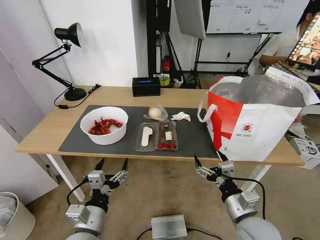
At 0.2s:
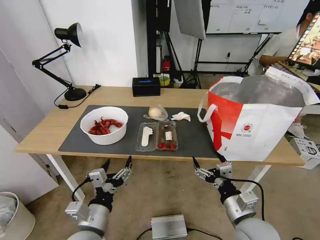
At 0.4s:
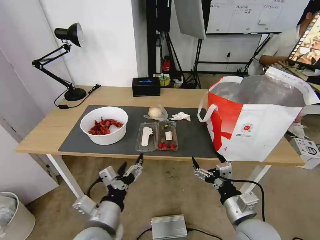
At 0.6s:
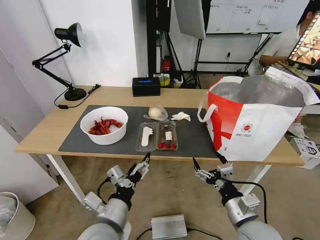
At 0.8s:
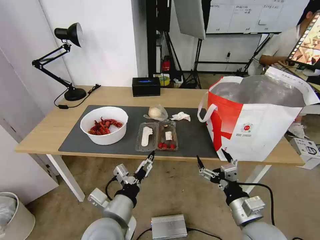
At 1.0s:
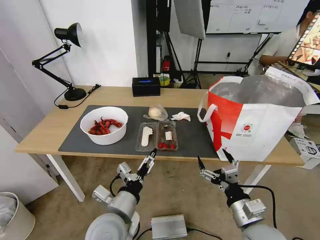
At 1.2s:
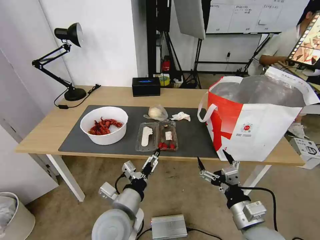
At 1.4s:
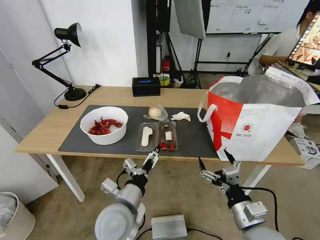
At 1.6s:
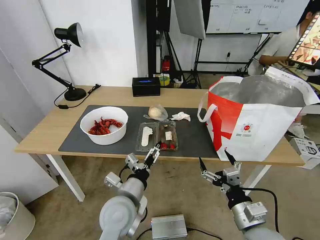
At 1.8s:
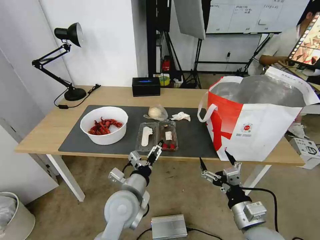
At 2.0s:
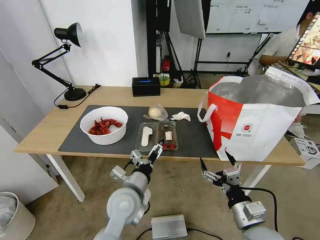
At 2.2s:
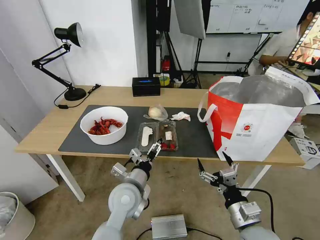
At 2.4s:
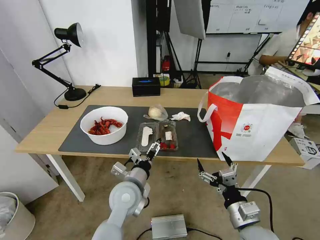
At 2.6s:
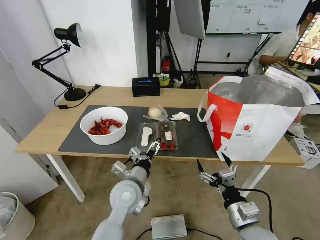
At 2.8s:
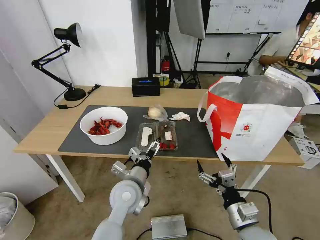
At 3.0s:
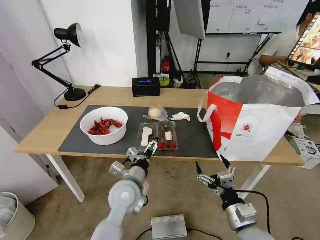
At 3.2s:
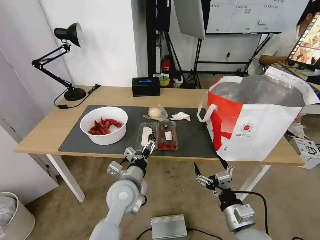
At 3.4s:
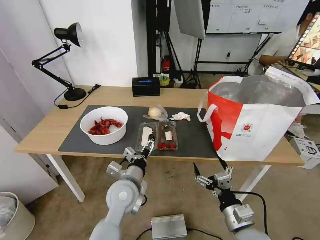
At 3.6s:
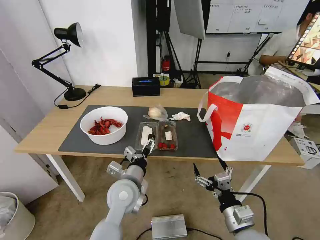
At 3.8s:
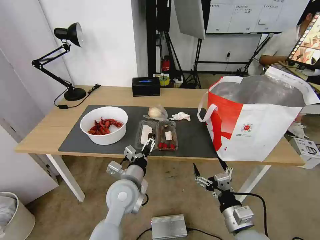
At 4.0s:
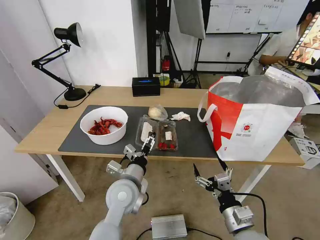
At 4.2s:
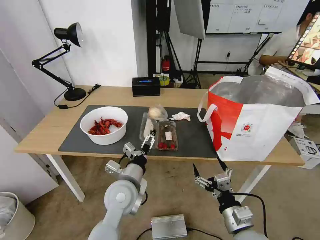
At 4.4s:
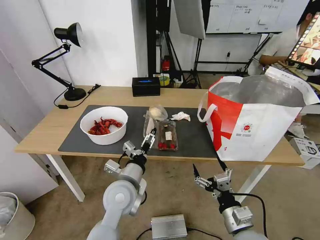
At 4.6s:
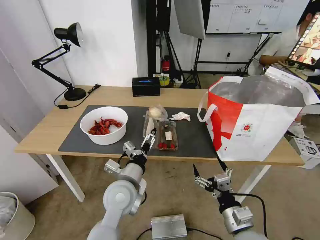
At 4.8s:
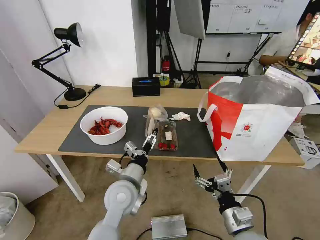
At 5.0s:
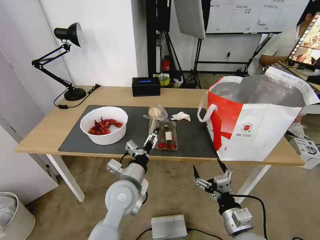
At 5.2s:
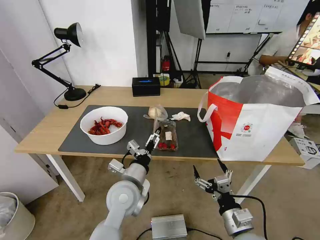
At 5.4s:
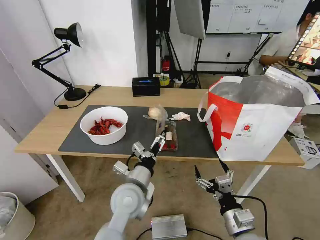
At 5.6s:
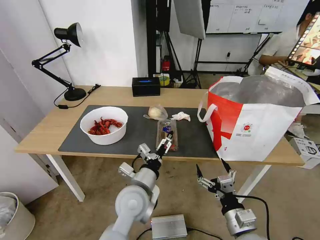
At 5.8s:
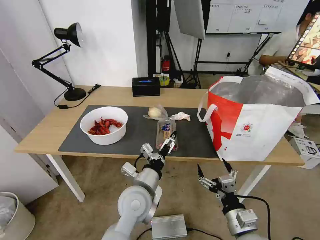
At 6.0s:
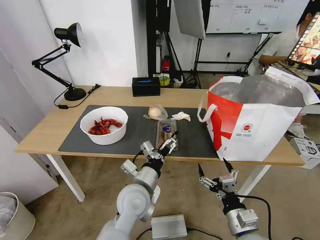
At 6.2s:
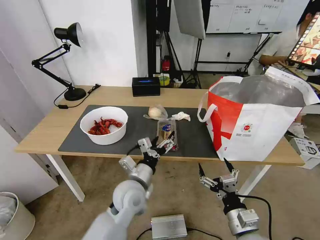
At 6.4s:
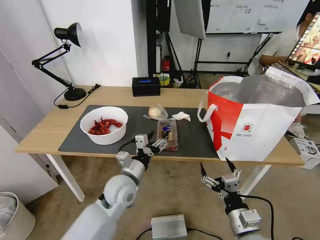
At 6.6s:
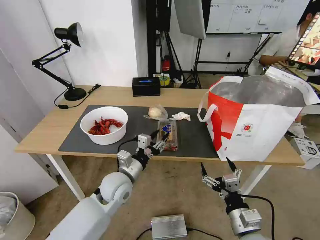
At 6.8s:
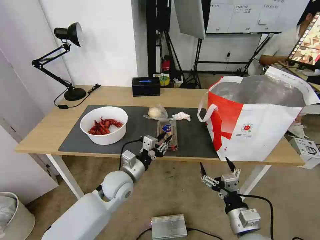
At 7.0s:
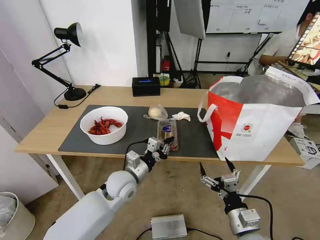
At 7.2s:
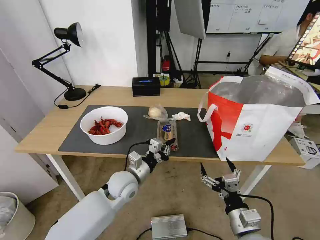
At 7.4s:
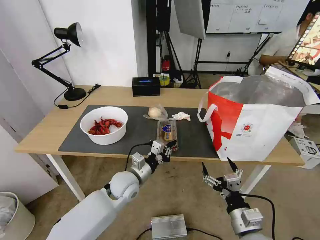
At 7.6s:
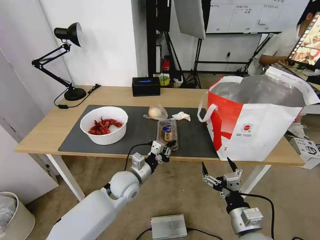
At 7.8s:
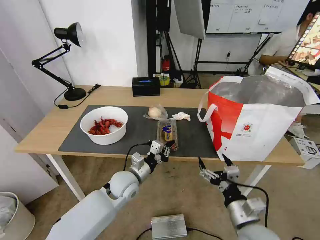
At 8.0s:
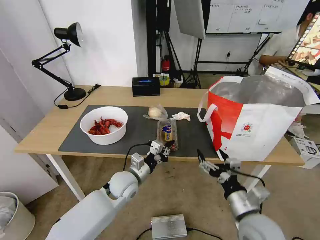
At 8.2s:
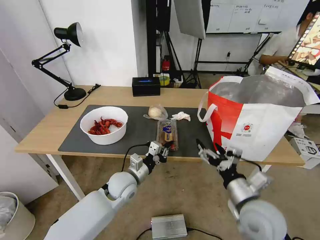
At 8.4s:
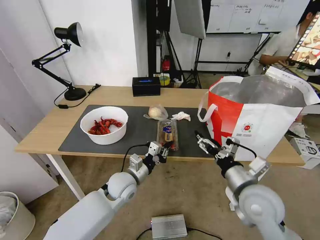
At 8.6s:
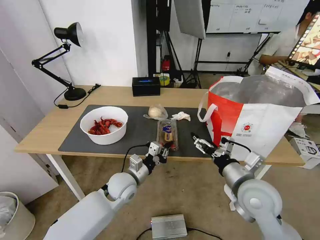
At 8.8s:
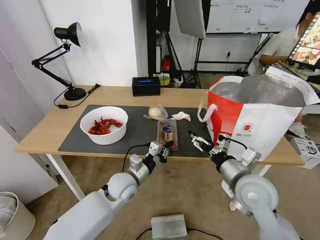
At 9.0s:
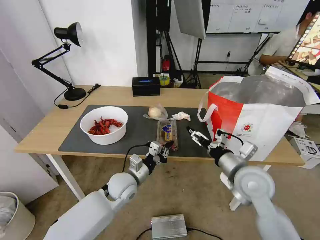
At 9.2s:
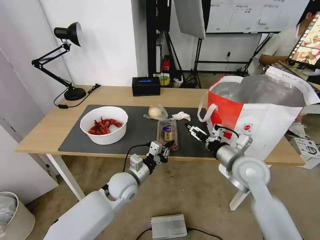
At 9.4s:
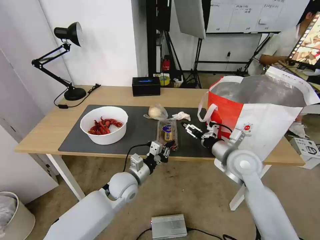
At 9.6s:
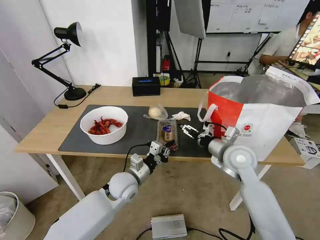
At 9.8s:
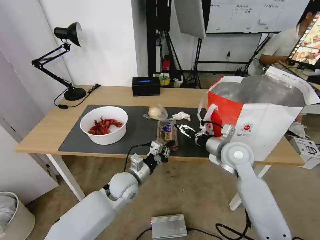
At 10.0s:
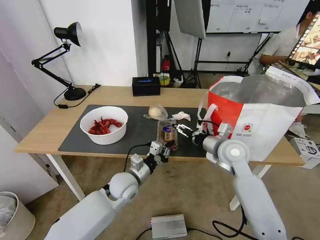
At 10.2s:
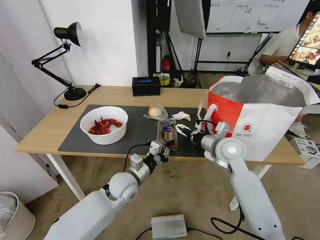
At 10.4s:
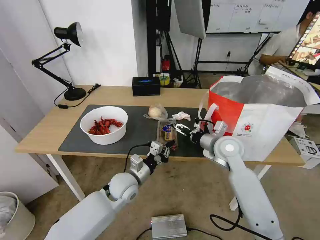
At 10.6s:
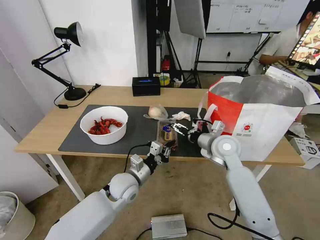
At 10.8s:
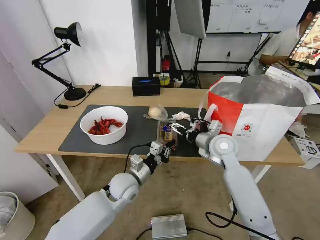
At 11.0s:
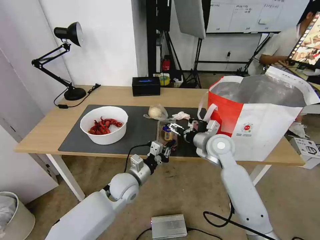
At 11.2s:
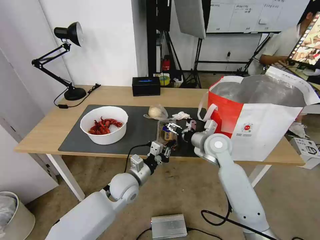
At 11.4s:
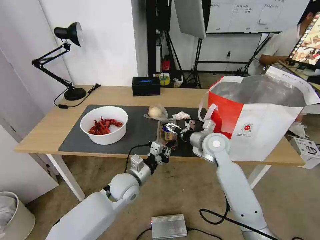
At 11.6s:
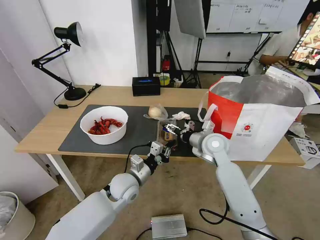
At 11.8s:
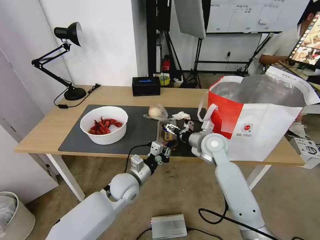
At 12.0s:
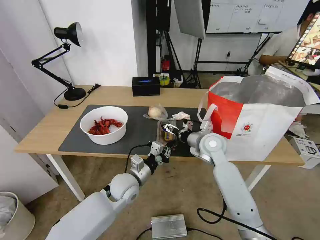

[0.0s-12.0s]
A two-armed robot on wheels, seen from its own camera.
Task of the whole recording: Pick up the trash from the table and place it into the takeout bag.
0.0s to 1.6s: The left gripper is displaced to the right and forward by some 10 cm.
1.6s to 3.0s: The left gripper shifts about 5 cm forward.
3.0s to 6.0s: There are only small adjustments of the grippers.
6.0s to 7.6s: The left gripper is displaced forward and downward by about 10 cm, and closes up.
7.6s to 9.0s: The right gripper is displaced forward and upward by approximately 15 cm.
9.0s to 10.4s: The right gripper moves forward, about 10 cm.
10.4s to 12.0s: The right gripper shifts by some 5 cm.

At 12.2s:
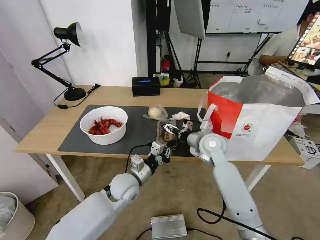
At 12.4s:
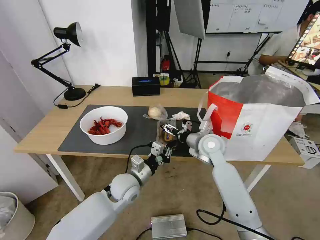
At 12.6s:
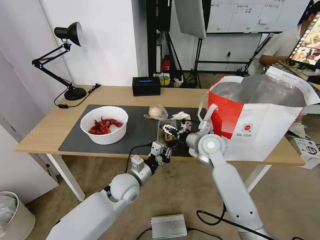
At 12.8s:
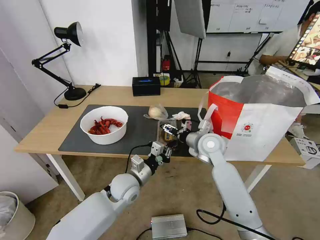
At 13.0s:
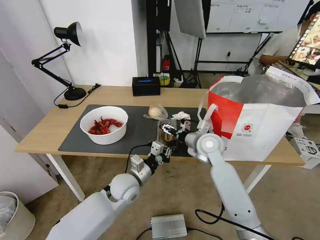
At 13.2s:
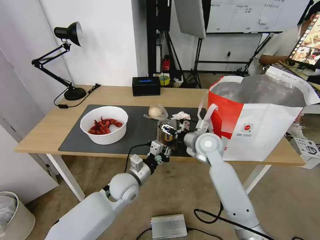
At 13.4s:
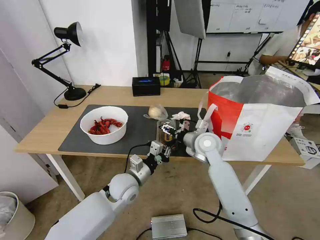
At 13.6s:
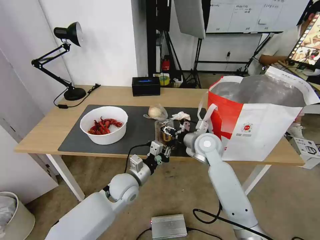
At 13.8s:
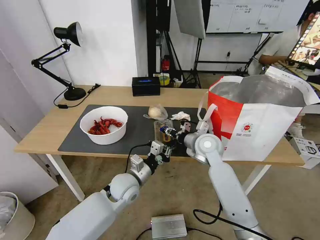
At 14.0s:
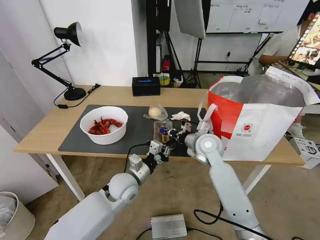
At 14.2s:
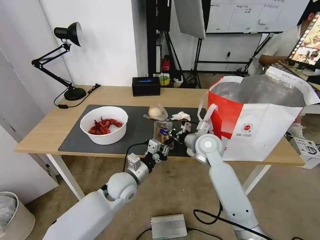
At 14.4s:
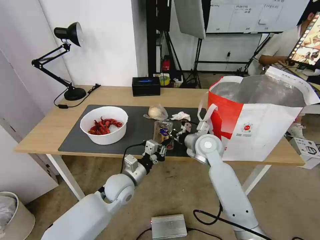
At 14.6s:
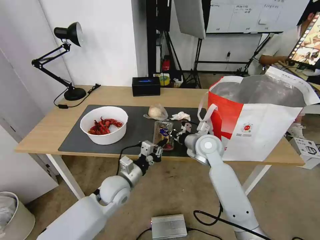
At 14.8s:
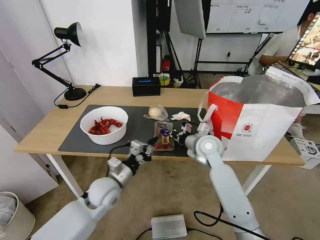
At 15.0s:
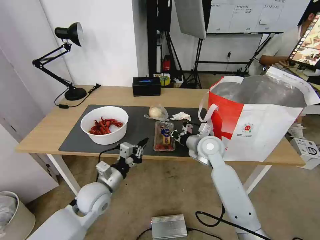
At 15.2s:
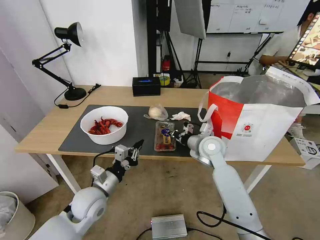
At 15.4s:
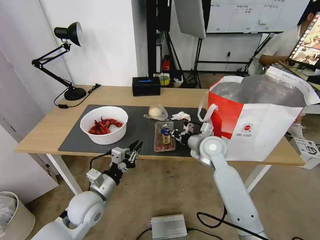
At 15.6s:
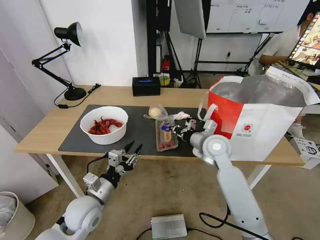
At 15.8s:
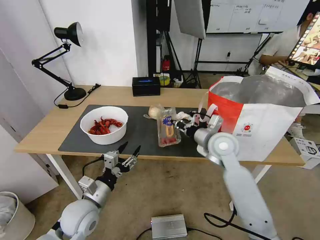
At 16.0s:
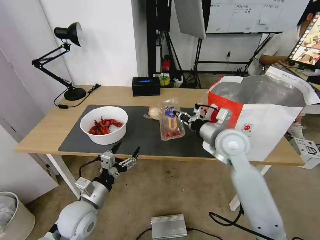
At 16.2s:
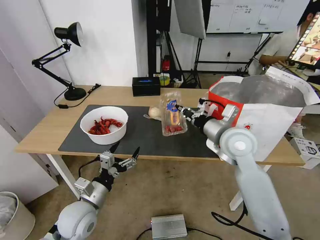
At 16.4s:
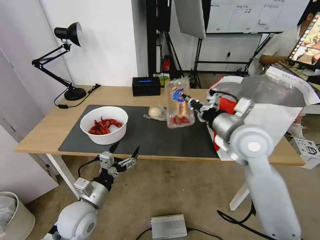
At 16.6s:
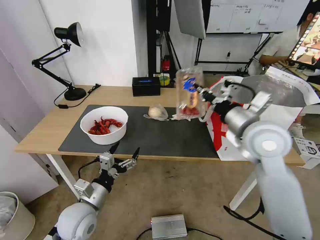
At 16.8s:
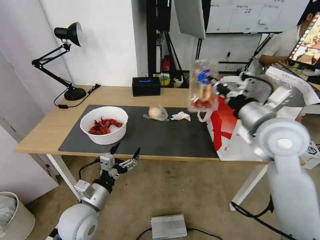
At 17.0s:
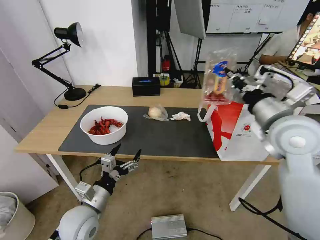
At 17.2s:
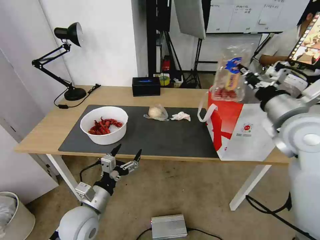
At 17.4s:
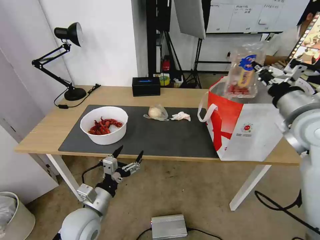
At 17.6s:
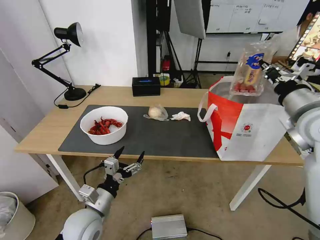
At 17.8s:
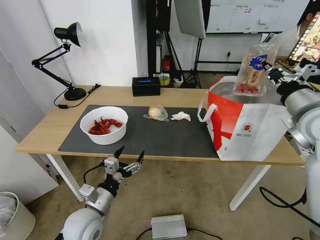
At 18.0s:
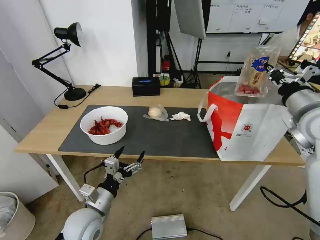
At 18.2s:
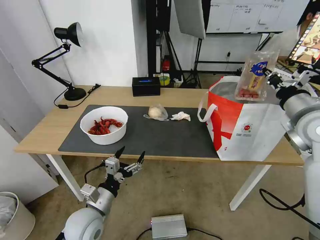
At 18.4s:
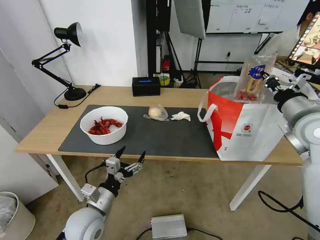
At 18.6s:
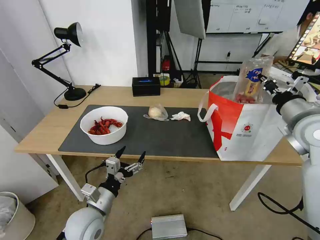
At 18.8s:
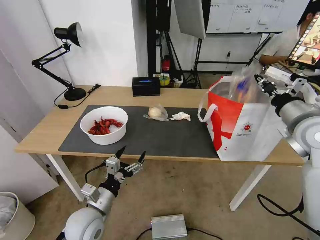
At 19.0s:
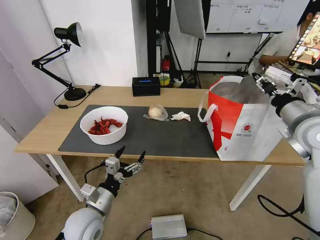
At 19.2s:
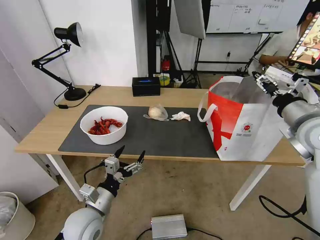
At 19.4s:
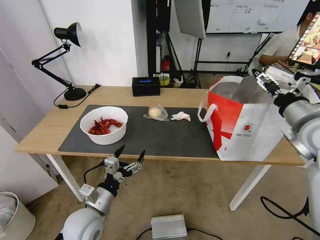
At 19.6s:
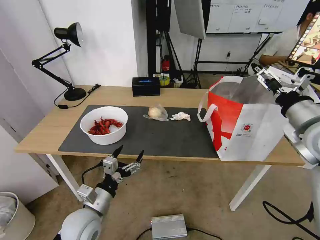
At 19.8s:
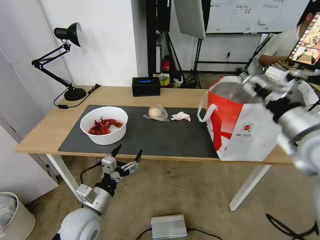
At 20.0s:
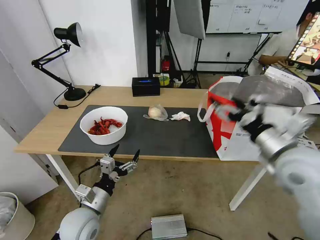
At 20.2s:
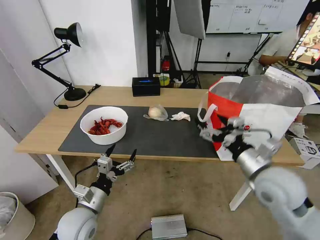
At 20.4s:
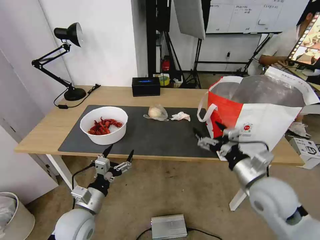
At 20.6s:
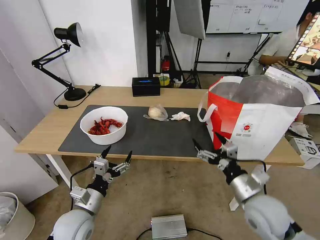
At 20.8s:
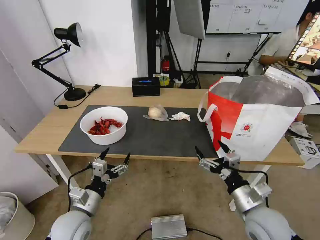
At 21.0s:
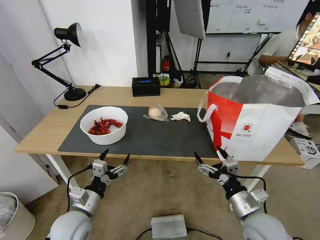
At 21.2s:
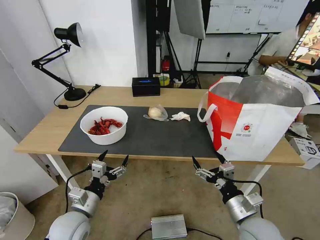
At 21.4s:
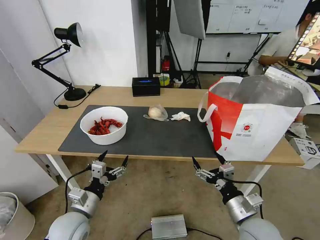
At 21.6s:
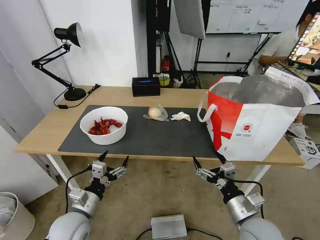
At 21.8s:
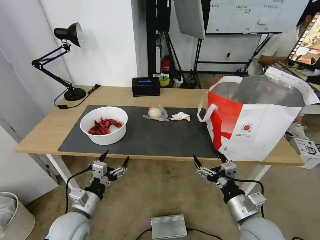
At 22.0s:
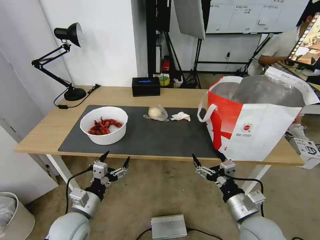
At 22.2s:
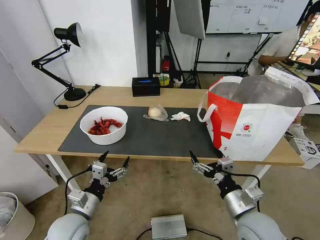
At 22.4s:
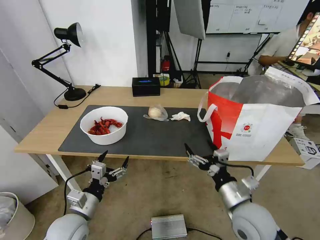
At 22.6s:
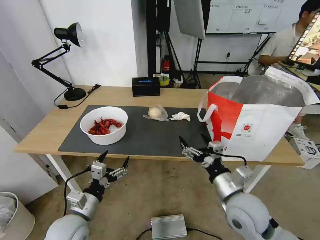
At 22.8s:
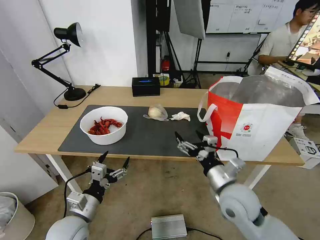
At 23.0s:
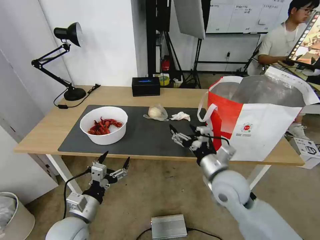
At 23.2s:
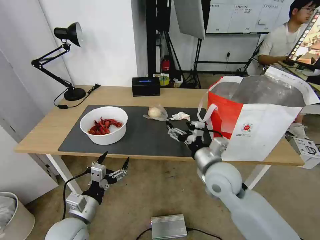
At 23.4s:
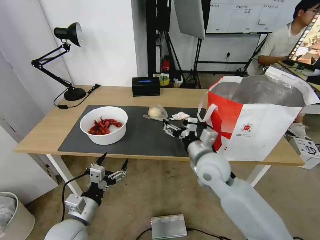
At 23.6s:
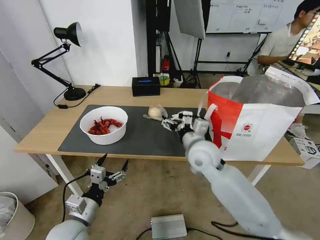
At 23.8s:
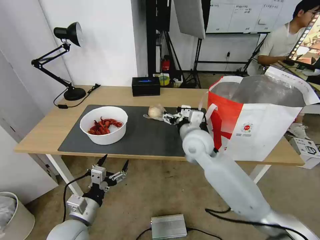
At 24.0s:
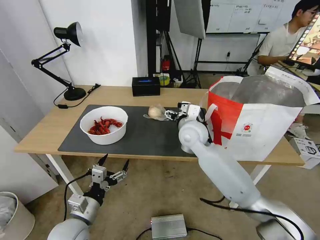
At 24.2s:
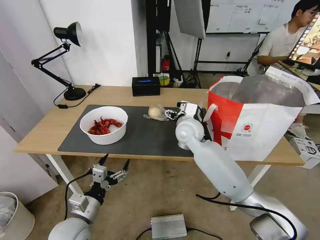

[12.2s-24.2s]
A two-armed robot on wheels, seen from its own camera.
Task of the whole recording: Pick up the trash from the table and place it into the takeout bag.
12.2s to 13.8s: The right gripper closes its fingers.
13.8s to 15.2s: The right gripper closes its fingers, while the left gripper heads to the left and backward, covering some 10 cm.
15.2s to 16.6s: The right gripper moves upward and backward, about 20 cm, while the left gripper shifts by some 5 cm, and opens up.
16.6s to 18.2s: The right gripper moves to the right, approximately 15 cm.
18.2s to 19.8s: The right gripper is displaced backward by roughly 5 cm, and opens its fingers.
19.8s to 21.2s: The right gripper moves downward and backward, about 25 cm.
21.2s to 22.6s: The right gripper travels upward by roughly 5 cm.
22.6s to 24.2s: The right gripper travels forward and to the left by approximately 25 cm.
